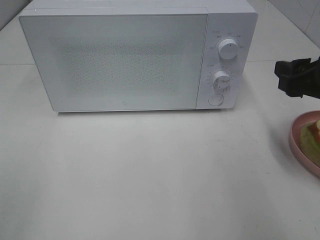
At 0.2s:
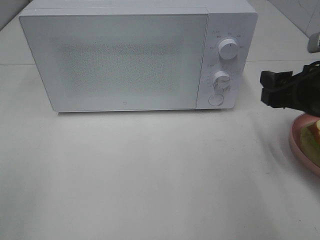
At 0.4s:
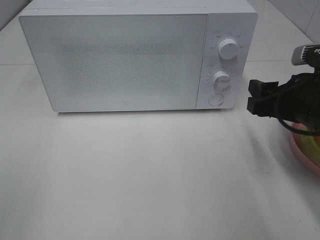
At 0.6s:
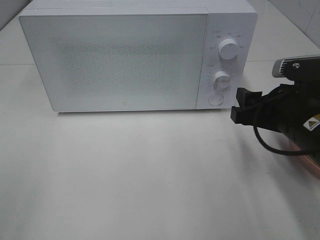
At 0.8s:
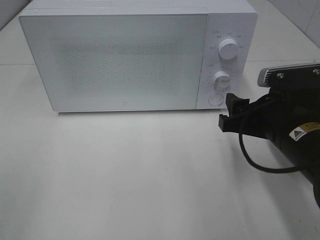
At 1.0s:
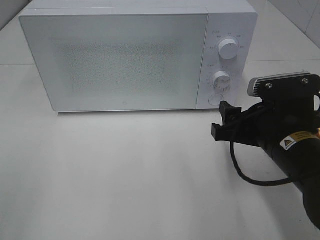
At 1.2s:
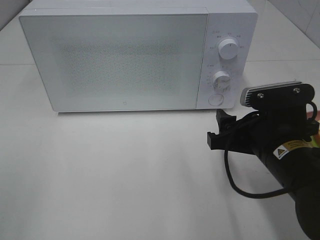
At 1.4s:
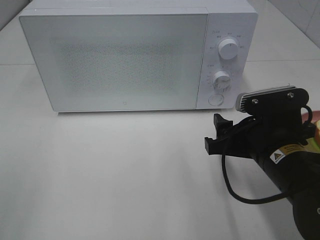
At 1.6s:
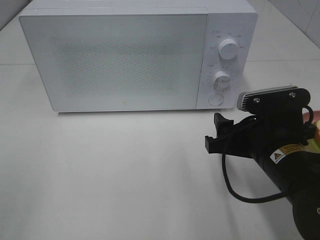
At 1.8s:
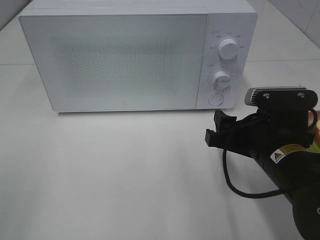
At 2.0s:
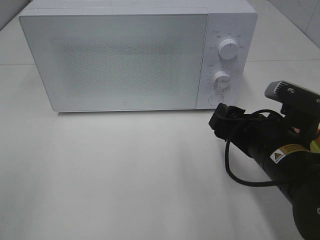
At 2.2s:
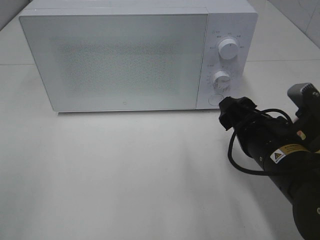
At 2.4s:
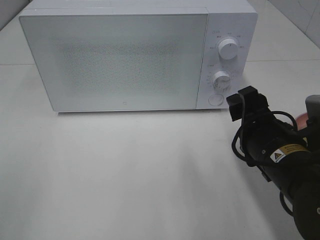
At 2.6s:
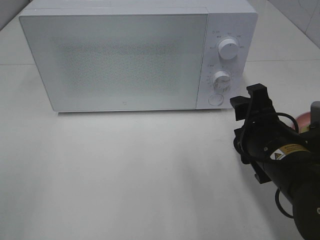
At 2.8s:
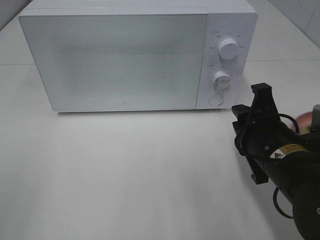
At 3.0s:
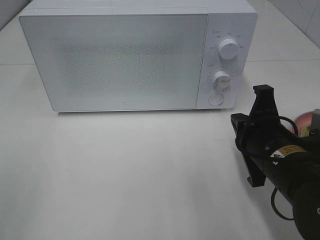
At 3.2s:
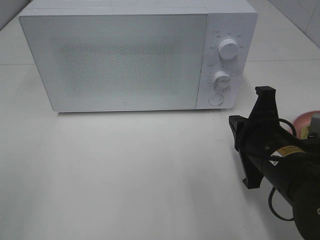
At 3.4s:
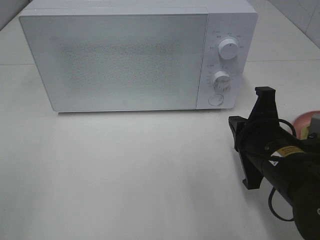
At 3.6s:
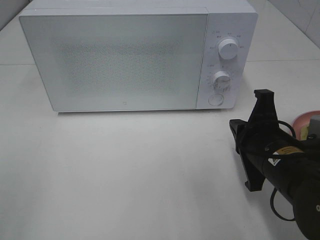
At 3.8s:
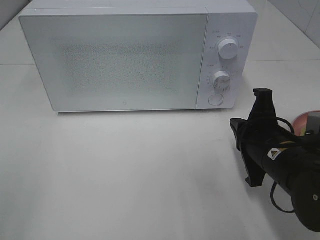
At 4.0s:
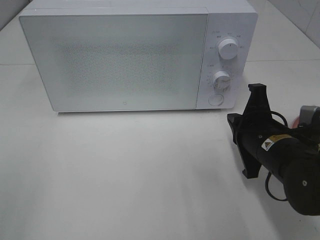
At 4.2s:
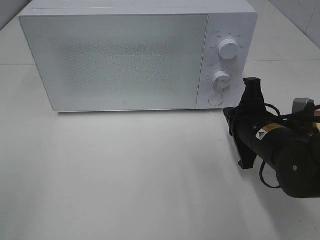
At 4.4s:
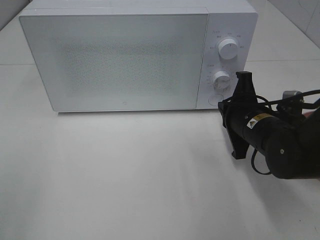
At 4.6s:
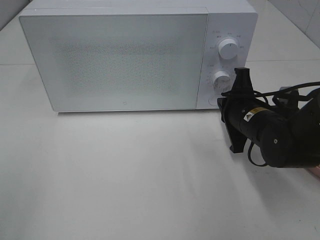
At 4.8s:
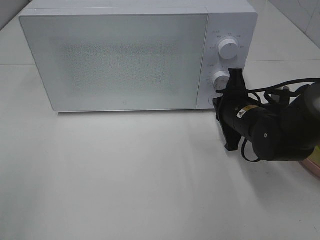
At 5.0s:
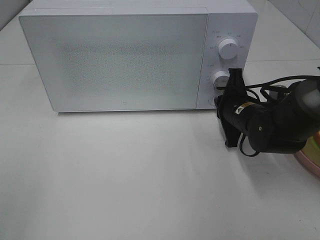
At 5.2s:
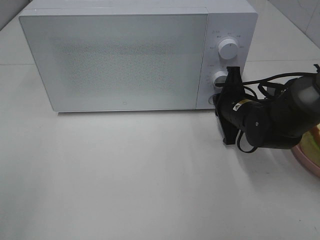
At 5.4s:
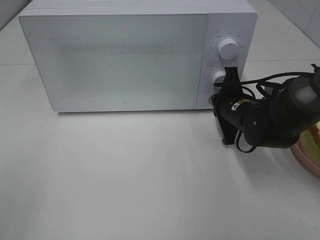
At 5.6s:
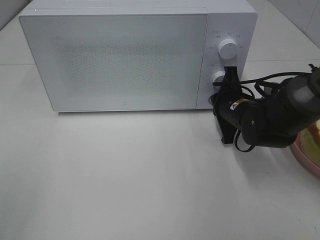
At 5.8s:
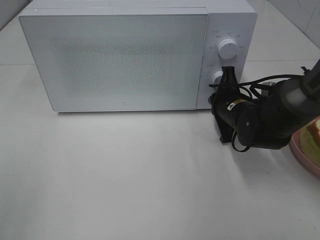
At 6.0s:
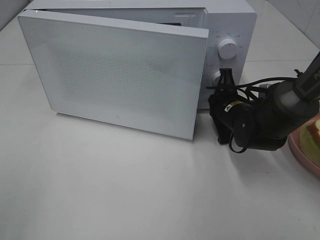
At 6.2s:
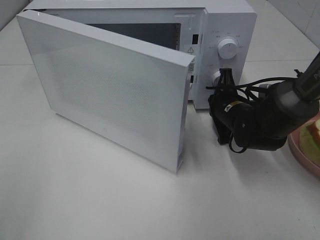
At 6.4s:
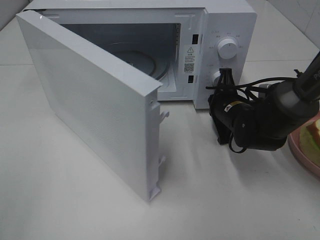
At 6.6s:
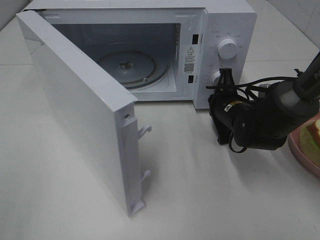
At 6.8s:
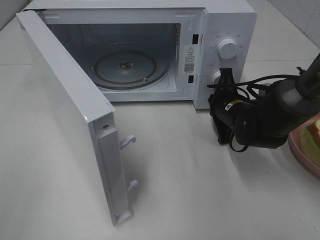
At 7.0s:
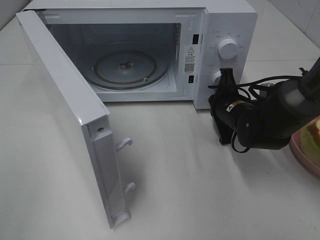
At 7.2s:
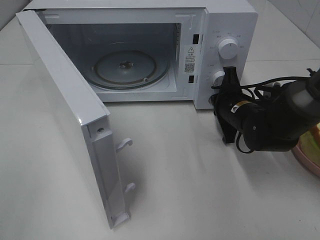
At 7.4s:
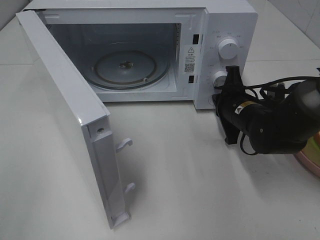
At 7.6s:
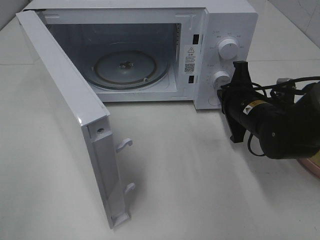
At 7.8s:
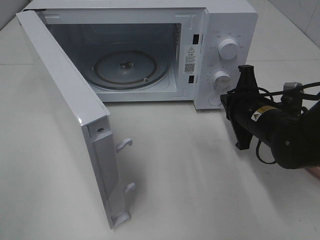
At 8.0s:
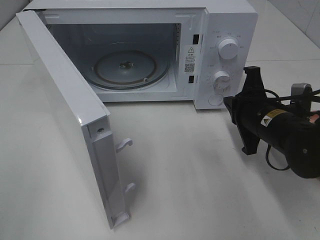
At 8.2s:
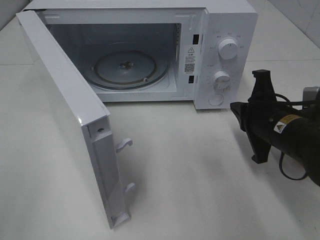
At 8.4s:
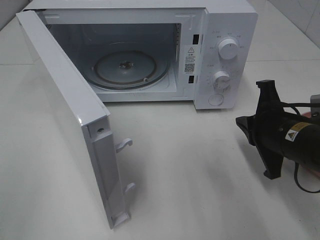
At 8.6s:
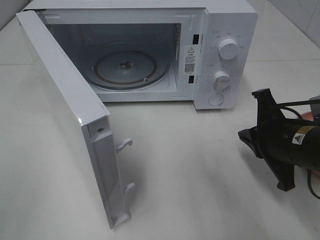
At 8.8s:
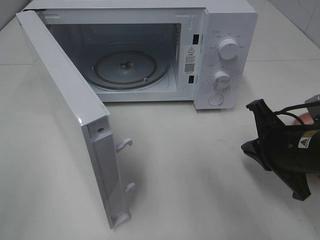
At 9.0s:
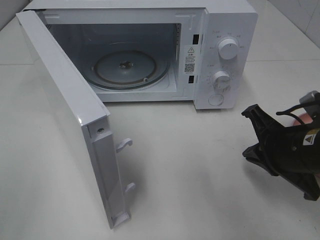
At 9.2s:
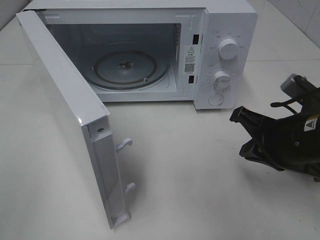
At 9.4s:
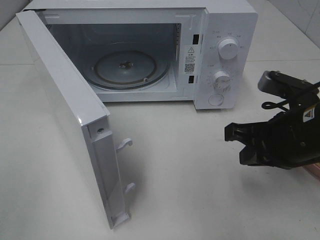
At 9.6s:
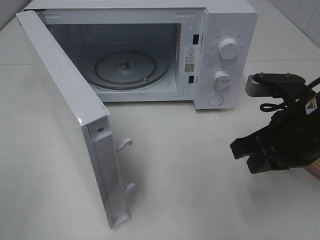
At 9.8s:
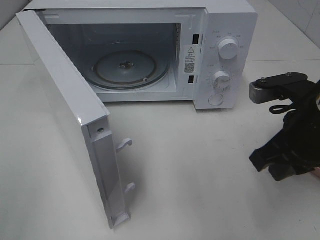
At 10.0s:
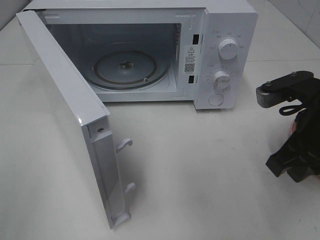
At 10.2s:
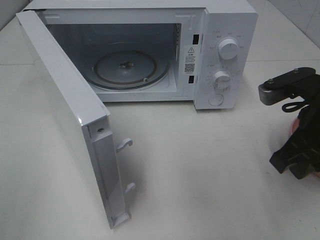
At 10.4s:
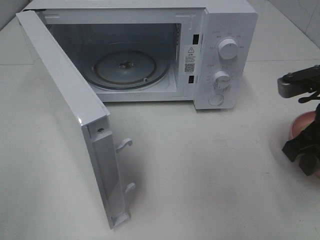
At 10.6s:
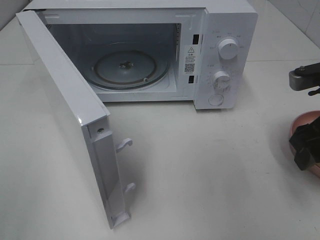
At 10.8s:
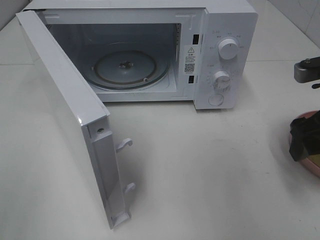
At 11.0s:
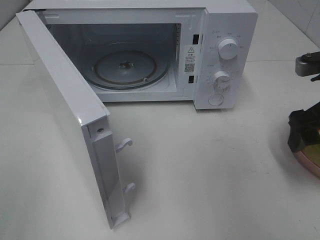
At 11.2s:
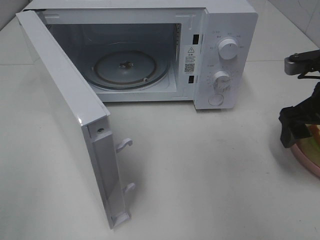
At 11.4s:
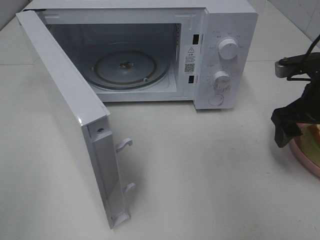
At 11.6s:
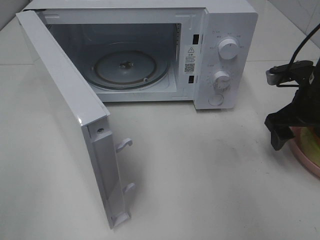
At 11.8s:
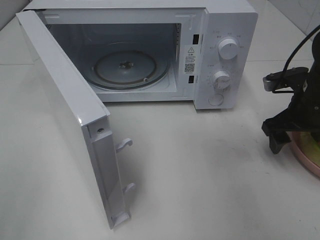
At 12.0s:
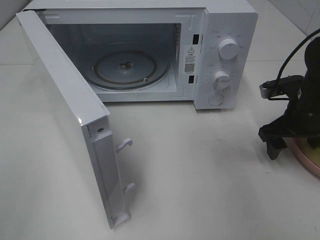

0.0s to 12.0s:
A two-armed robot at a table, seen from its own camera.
Task of the whole recording: Heat Sandwich.
Step, 0.0s to 7.4s: Right hand: press the switch.
0.0s to 1.6s: The right gripper travels to the left and downward by some 15 cm.
1.6s to 3.0s: The right gripper closes its fingers.
3.0s to 4.4s: The right gripper travels forward by some 10 cm.
4.4s to 6.0s: The right gripper is displaced forward by roughly 10 cm.
6.0s to 7.6s: The right gripper changes place by some 5 cm.
7.6s to 9.0s: The right gripper goes roughly 10 cm backward.
9.0s to 10.4s: The right gripper is displaced upward by some 5 cm, and opens its fingers.
10.4s to 12.0s: The right gripper heads forward and downward, covering some 15 cm, and opens its fingers.

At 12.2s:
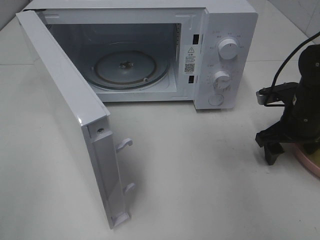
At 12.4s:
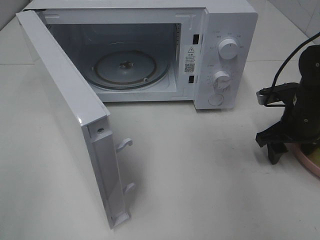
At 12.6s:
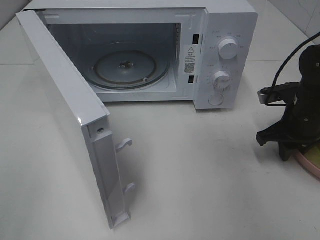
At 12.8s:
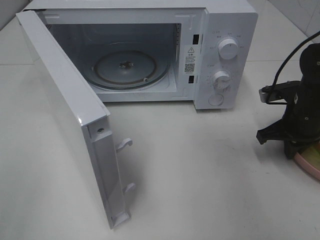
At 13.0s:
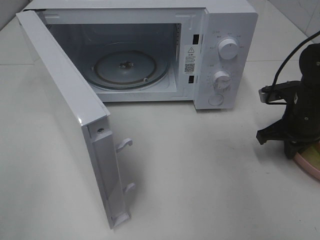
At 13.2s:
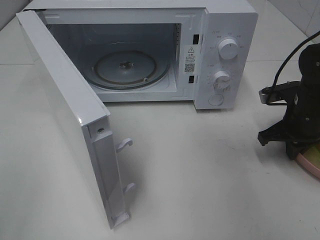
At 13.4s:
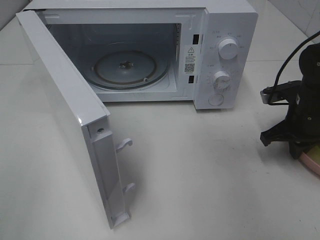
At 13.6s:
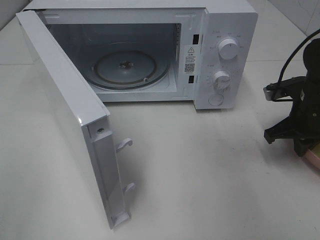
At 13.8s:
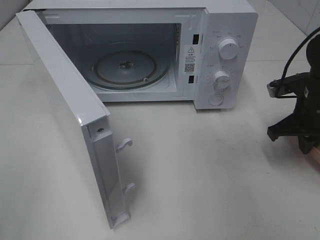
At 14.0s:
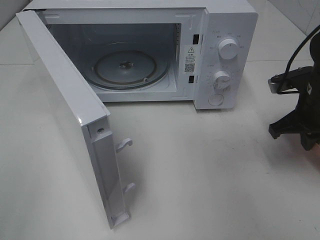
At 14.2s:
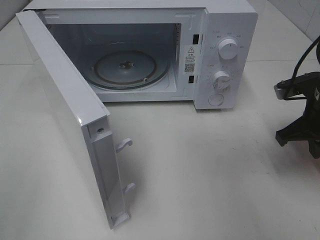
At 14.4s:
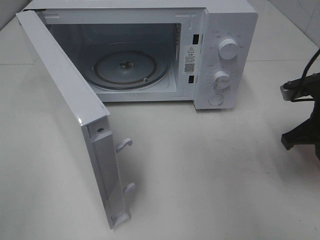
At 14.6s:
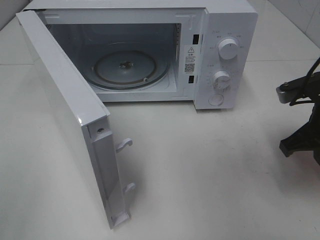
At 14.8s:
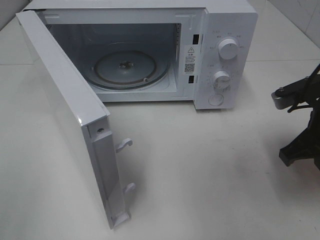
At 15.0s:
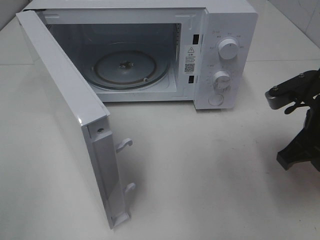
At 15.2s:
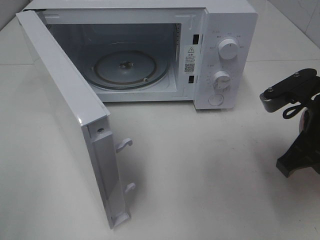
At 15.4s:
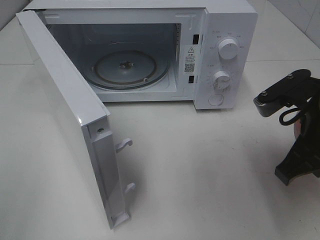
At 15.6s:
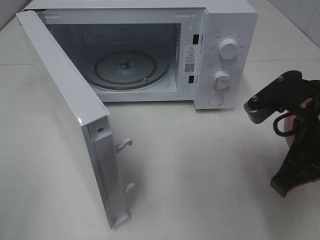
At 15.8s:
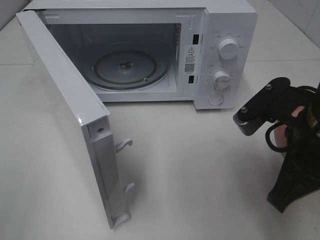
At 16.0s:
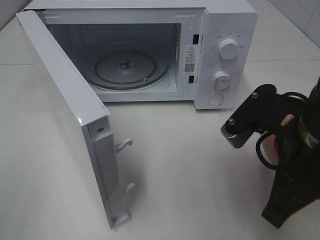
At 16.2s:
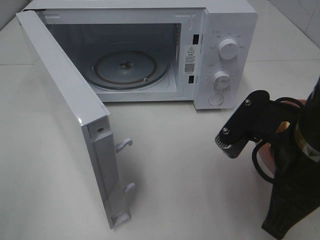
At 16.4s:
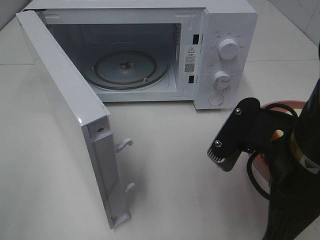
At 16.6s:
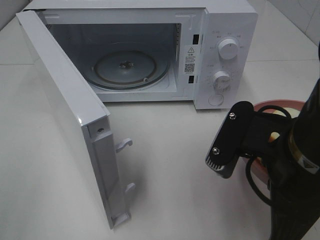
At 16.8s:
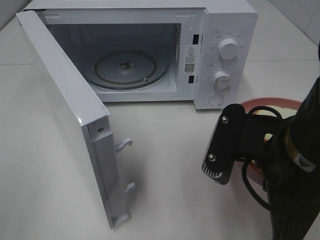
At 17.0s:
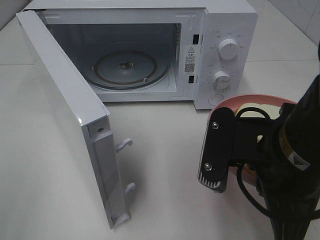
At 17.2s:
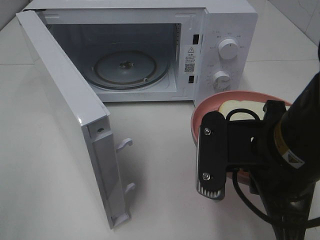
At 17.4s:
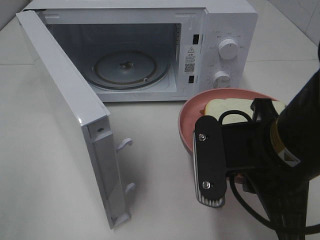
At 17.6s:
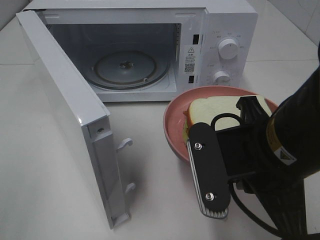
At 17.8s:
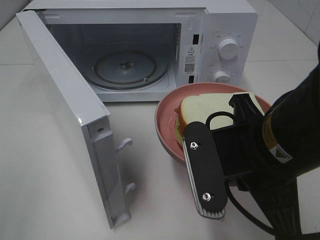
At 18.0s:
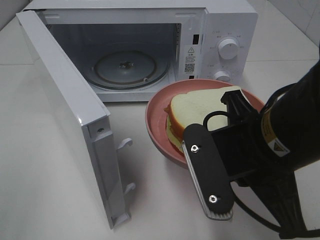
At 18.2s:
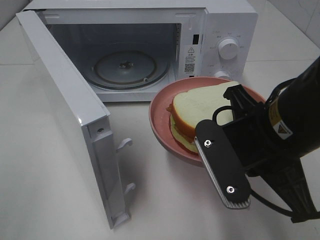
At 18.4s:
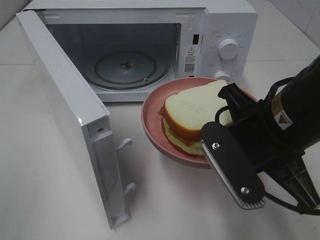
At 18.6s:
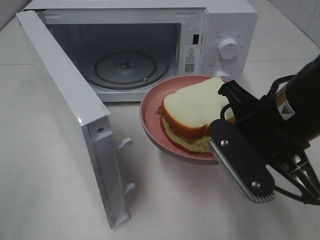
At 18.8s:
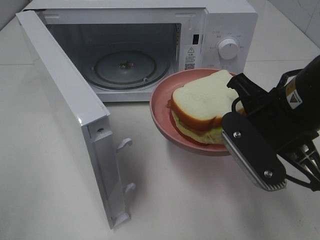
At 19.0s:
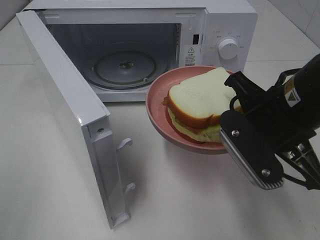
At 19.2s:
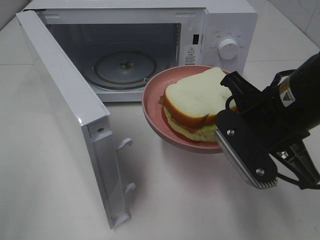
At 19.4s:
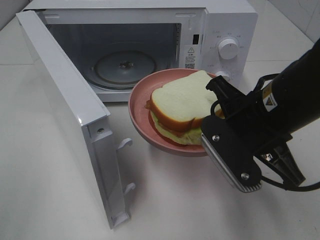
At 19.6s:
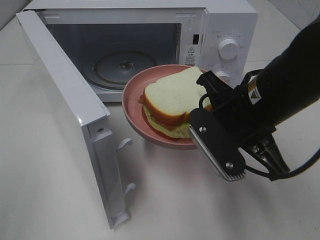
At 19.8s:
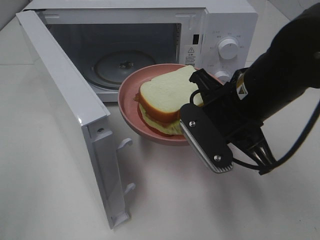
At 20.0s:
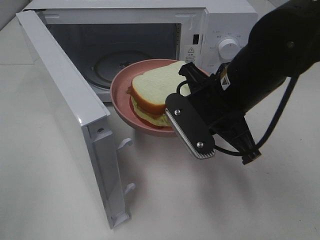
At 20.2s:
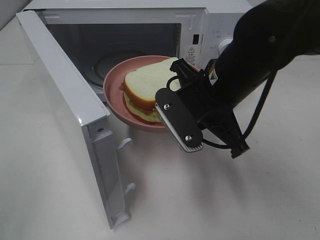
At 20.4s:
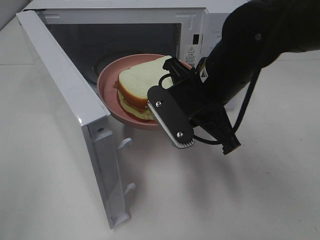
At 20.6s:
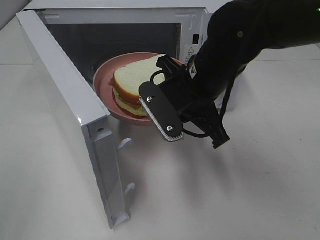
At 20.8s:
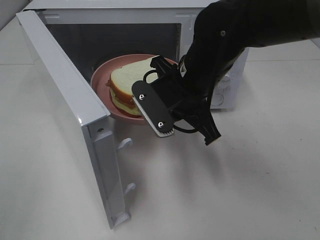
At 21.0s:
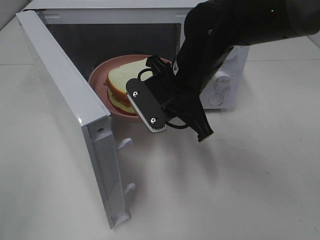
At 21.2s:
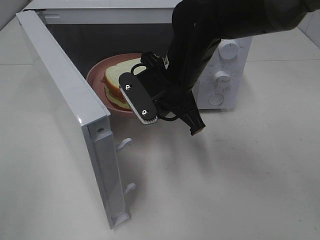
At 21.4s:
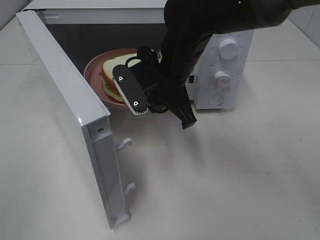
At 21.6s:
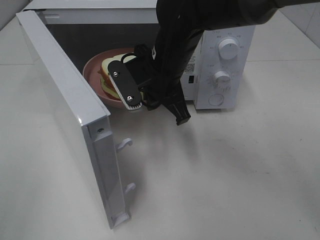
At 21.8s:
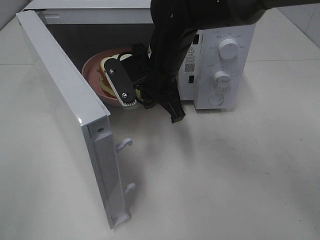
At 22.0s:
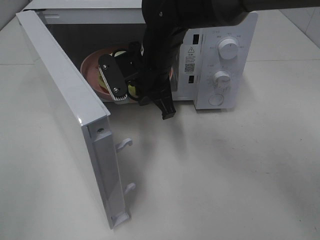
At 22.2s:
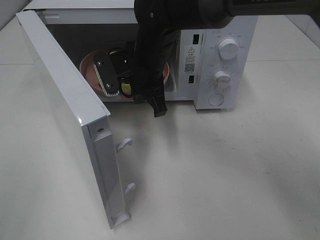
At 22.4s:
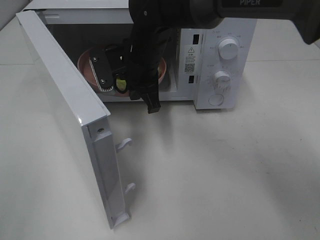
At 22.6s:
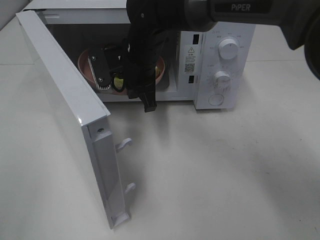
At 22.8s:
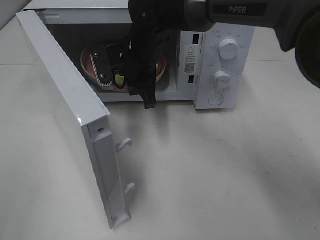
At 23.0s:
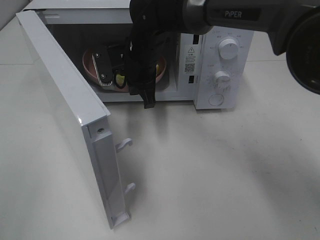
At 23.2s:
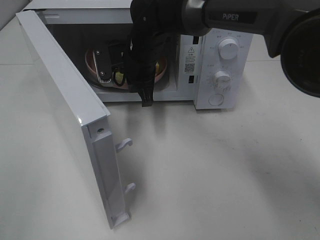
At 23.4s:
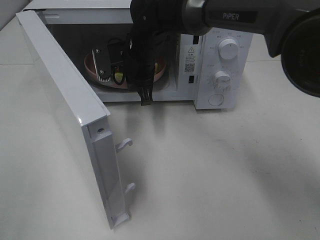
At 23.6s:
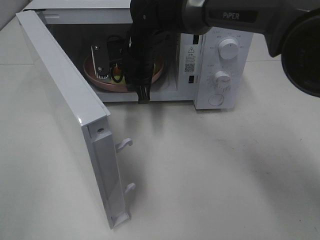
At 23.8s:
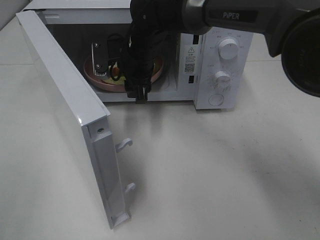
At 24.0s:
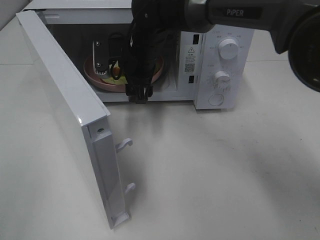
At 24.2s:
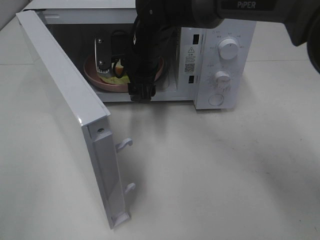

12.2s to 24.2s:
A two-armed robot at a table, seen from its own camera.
Task of the whole recording: Heat Sandwich.
12.2s to 13.8s: The right gripper closes up.
13.8s to 15.2s: The right gripper shifts about 15 cm backward, upward and to the left.
15.2s to 16.6s: The right gripper is displaced to the left and backward by about 10 cm.
18.2s to 19.8s: The right gripper moves forward, about 5 cm.
19.8s to 21.2s: The right gripper heads forward and to the left, covering approximately 10 cm.
21.2s to 22.6s: The right gripper shifts roughly 10 cm forward and to the left.
22.6s to 24.2s: The right gripper opens its fingers.
